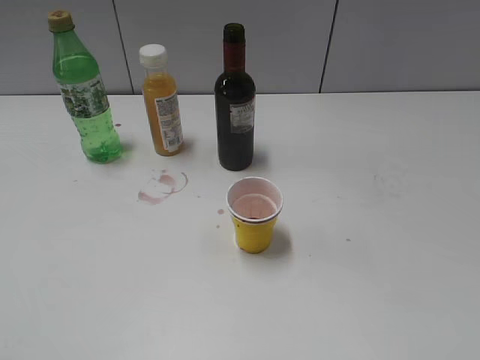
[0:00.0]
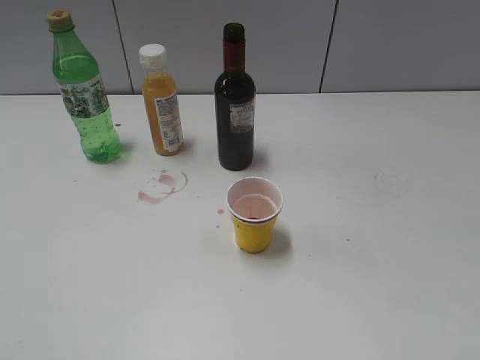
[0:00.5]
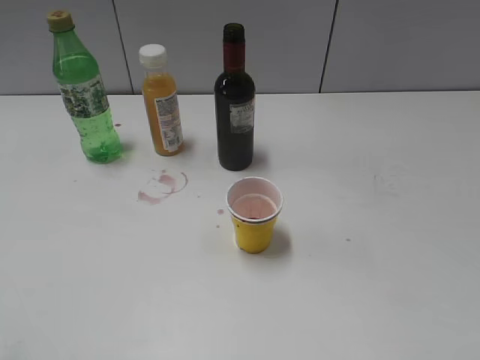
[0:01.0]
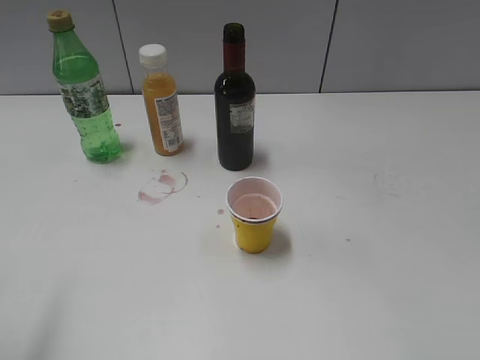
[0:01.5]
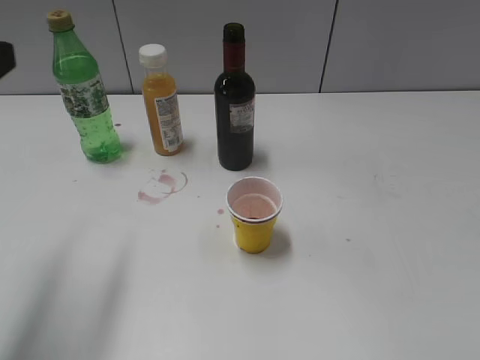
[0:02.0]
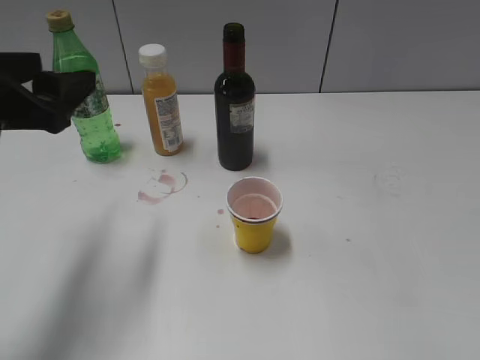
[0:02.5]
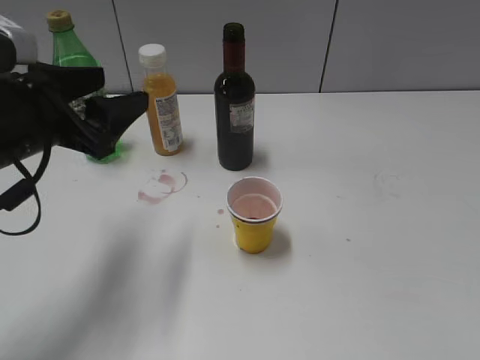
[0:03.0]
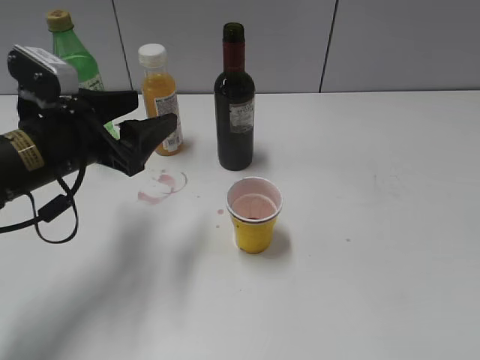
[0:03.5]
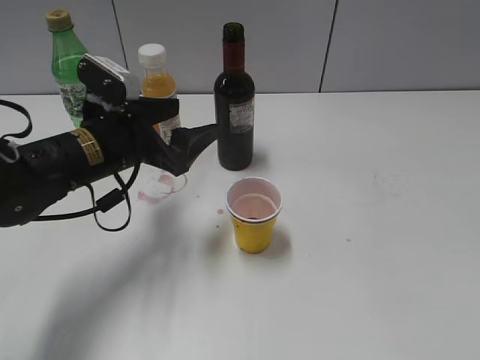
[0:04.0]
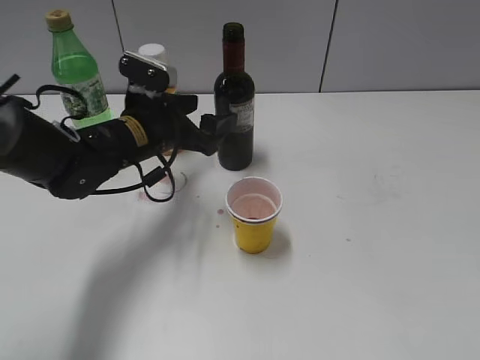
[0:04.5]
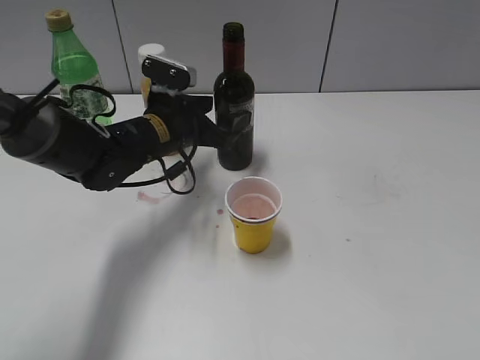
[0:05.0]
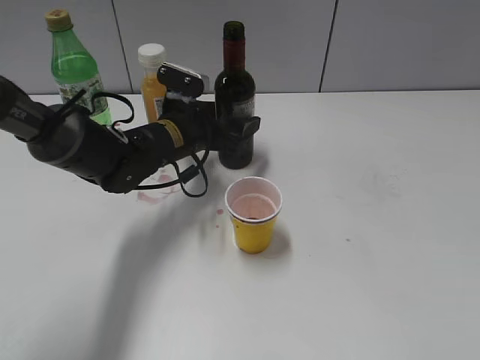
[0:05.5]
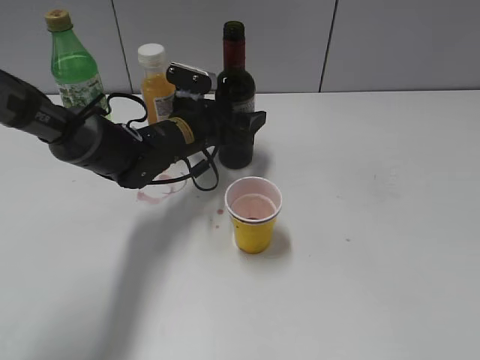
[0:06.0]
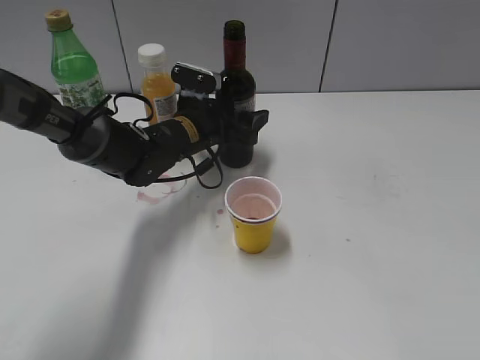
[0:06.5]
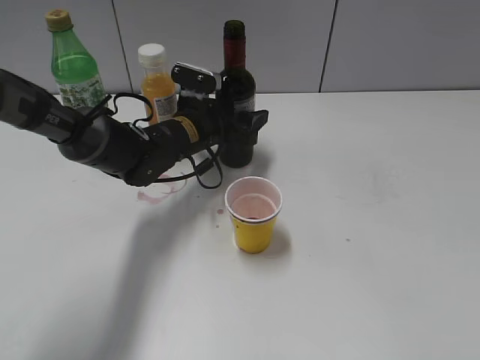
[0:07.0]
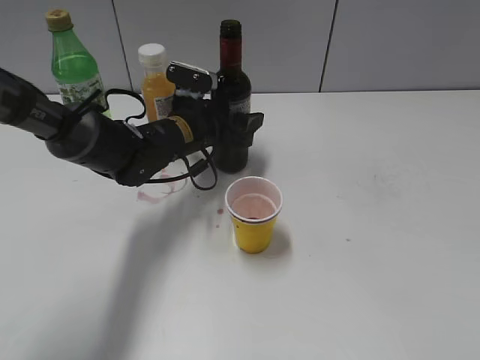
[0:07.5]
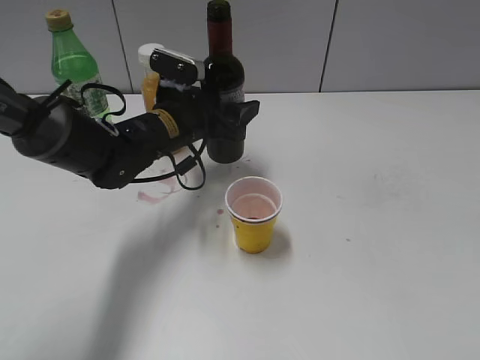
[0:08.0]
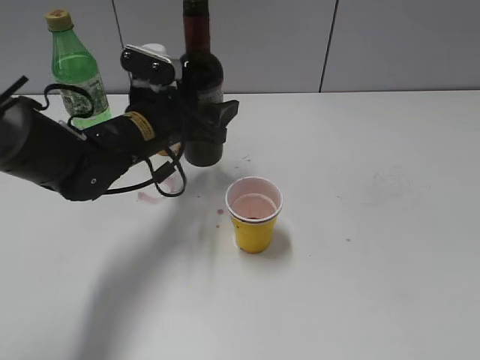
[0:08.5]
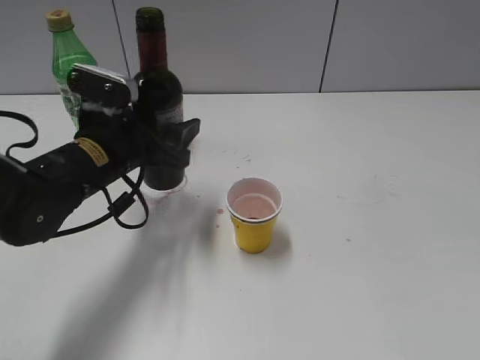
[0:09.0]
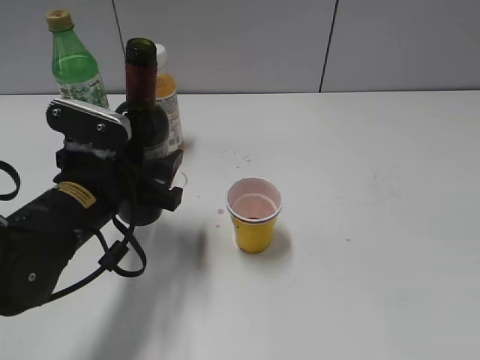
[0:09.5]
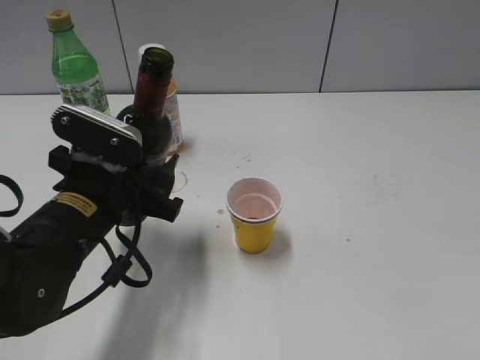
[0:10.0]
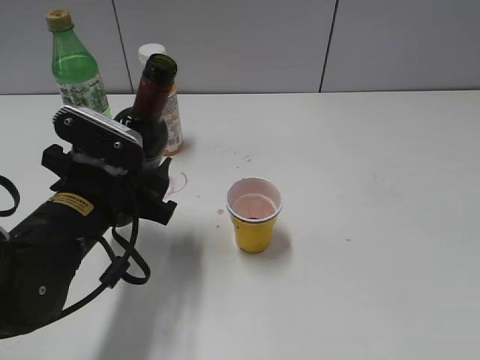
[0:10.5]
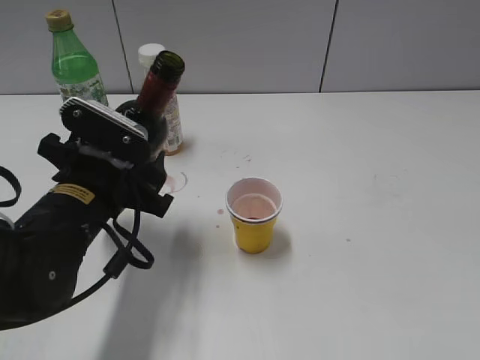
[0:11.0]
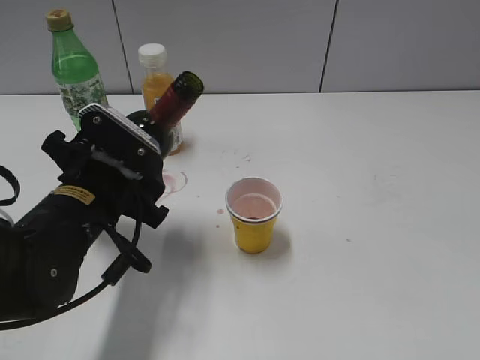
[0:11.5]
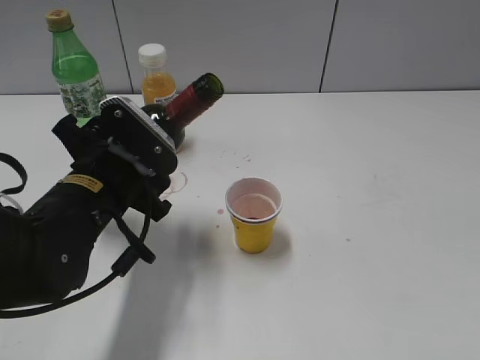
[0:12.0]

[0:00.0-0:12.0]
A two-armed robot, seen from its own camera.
Step, 0:00.0 to 0:07.0: Grasp the bottle with red wine with left gripper.
0:00.0 to 0:02.0: The left gripper moves forward, some 20 cm, and opens its fingers.
0:02.0 to 0:04.0: The left gripper is displaced downward, forward and to the right by roughly 20 cm.
0:04.0 to 0:06.0: The left gripper moves forward, to the right and downward, about 15 cm.
0:06.0 to 0:08.0: The grippers make only small movements.
0:08.0 to 0:10.0: The left gripper is displaced backward by some 15 cm.

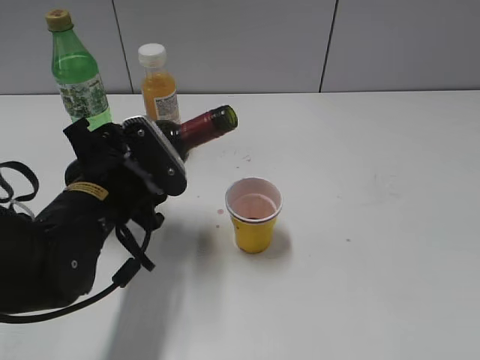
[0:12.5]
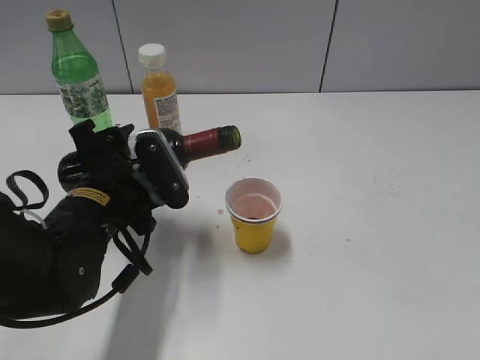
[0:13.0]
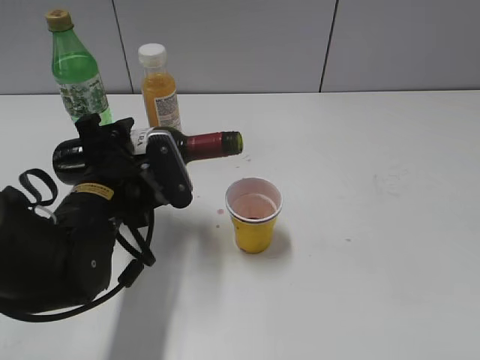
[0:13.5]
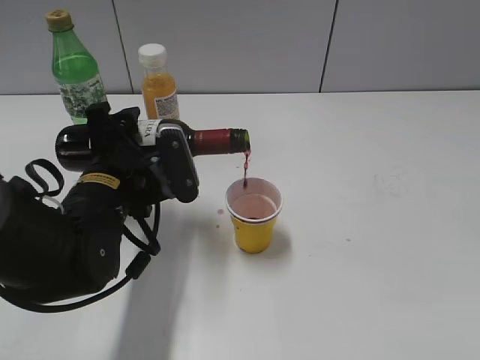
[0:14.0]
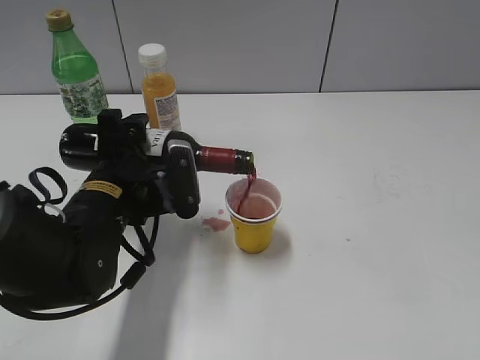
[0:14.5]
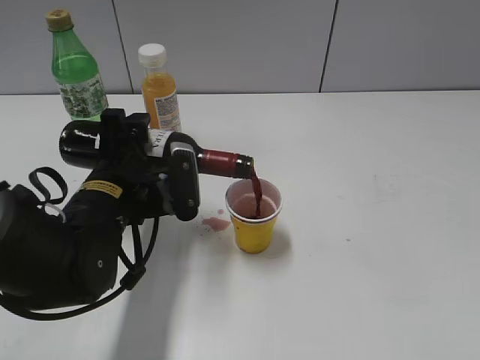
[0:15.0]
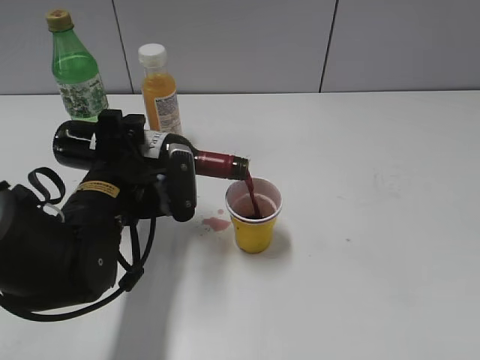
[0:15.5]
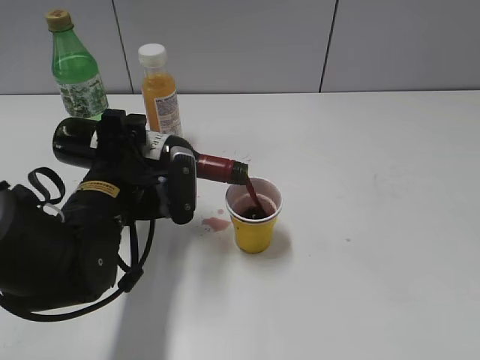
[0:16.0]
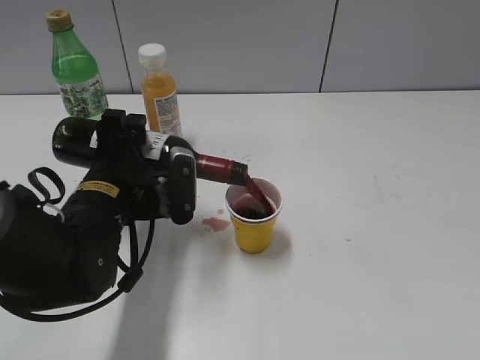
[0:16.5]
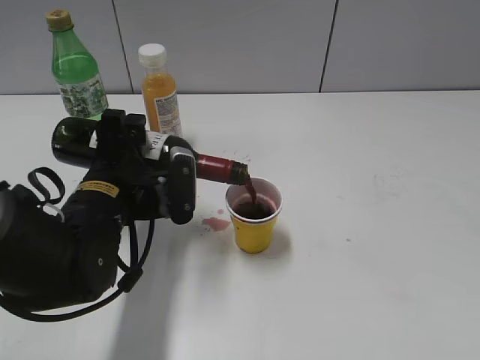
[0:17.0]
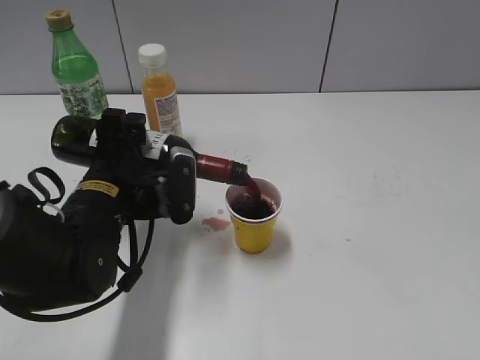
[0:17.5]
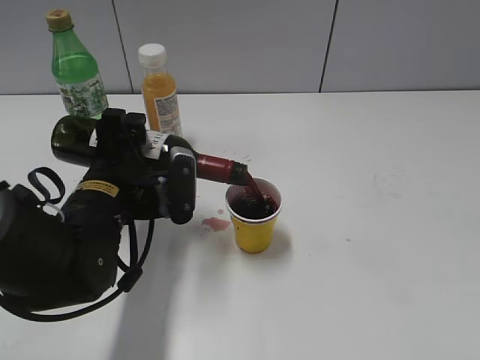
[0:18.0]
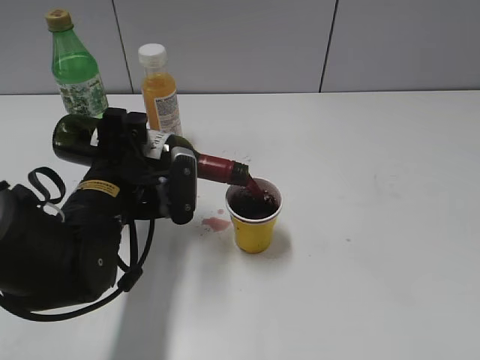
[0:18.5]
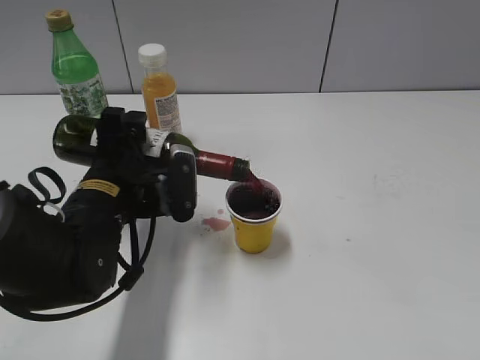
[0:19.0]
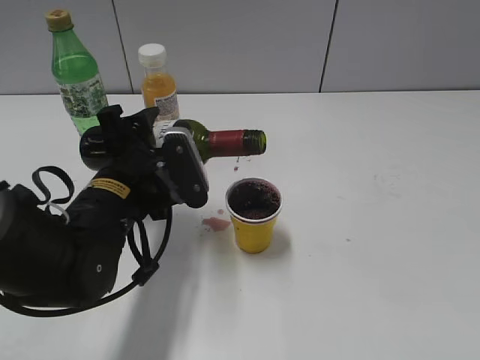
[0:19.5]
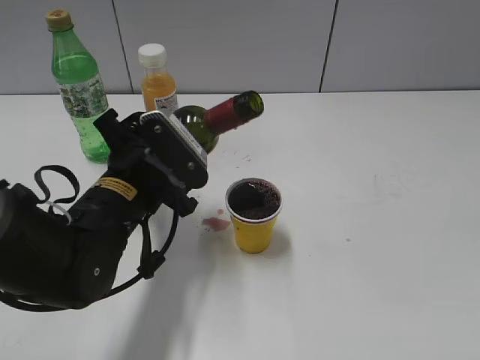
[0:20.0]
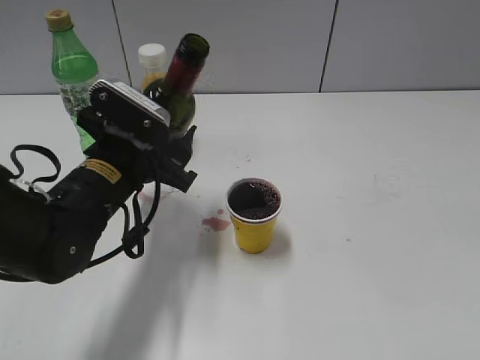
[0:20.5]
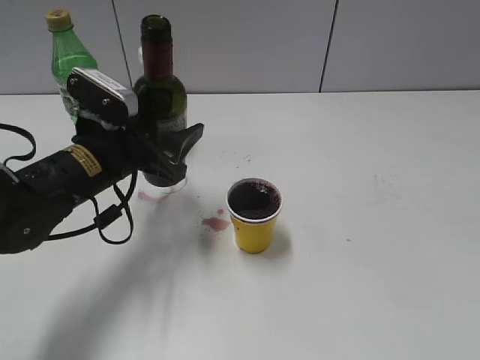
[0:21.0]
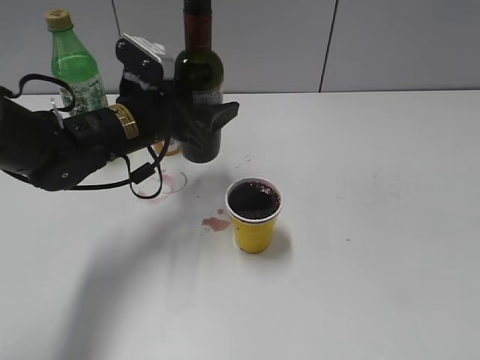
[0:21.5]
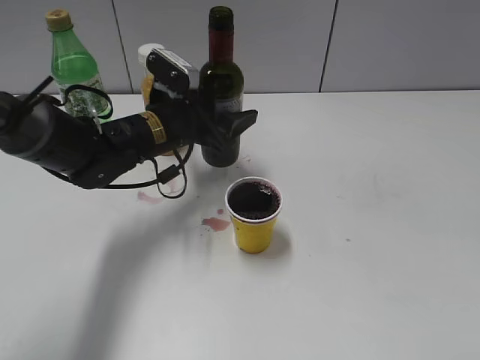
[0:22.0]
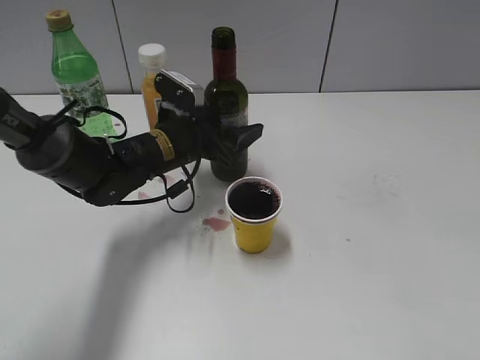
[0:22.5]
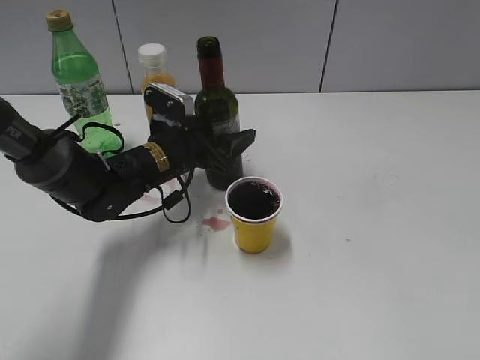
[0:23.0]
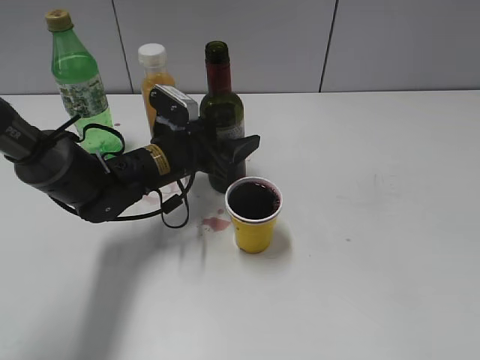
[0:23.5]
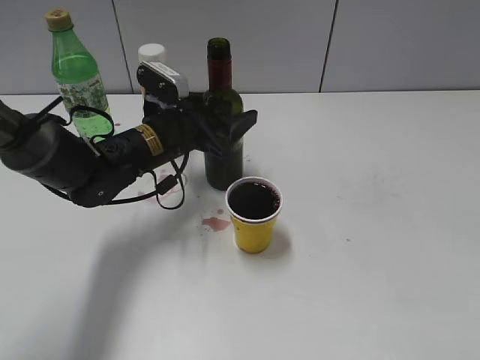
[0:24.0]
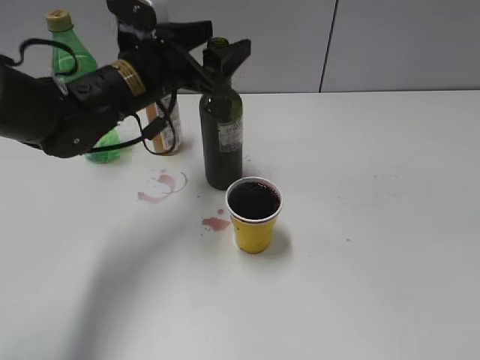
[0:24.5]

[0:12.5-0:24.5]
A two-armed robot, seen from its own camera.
Step, 0:12.5 to 0:19.5: Pour the red wine from bottle to cup with left gripper.
Step, 0:20.0 to 0:24.0: Place the red wine bottle on the table with left gripper.
0:14.5 to 0:16.5: The grippers make only small movements.
0:16.5 to 0:18.5: Neither gripper changes place.
0:20.5 to 0:22.5: The left gripper travels forward by roughly 10 cm.
0:22.5 to 0:24.5: The left gripper shifts approximately 10 cm upward.

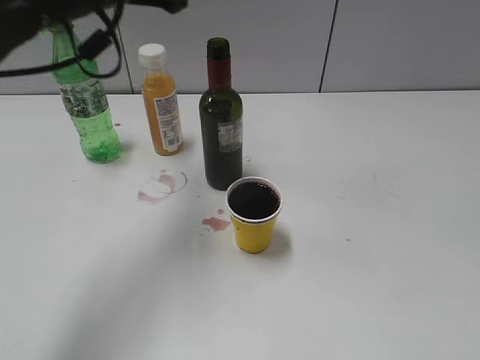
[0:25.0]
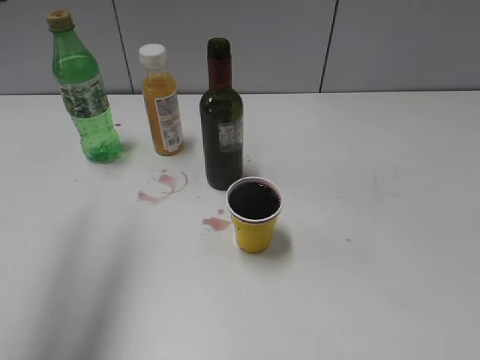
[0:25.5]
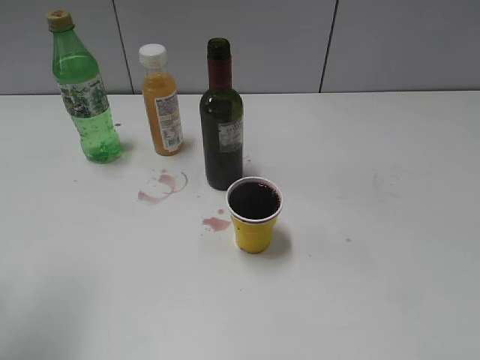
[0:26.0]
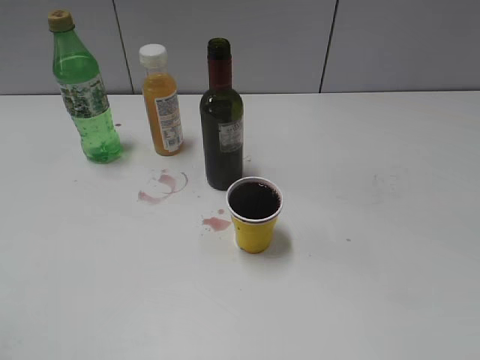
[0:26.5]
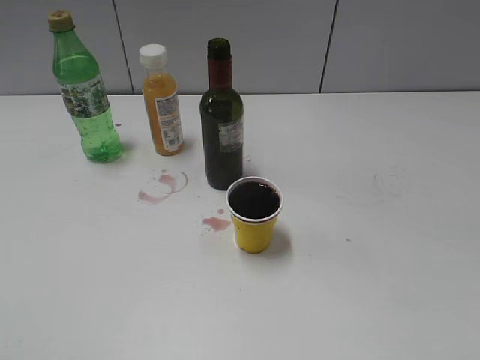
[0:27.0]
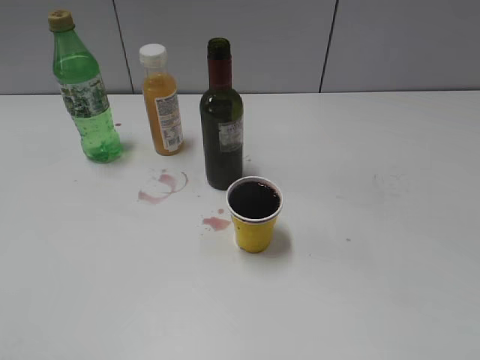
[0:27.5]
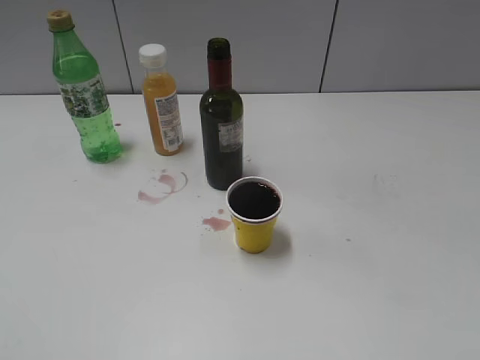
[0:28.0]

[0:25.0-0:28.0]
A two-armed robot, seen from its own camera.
0:25.0 to 0:26.5: The left gripper heads backward and to the left, covering about 30 cm.
